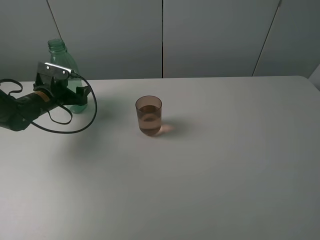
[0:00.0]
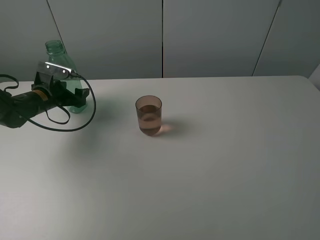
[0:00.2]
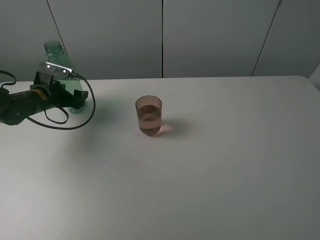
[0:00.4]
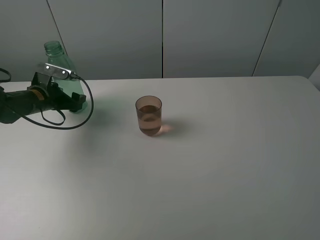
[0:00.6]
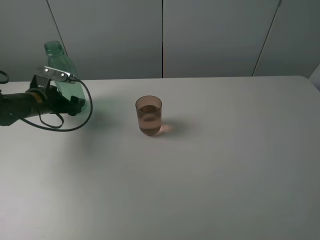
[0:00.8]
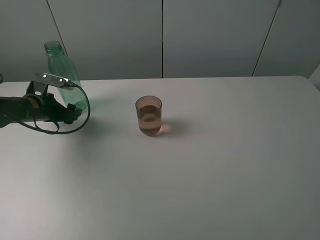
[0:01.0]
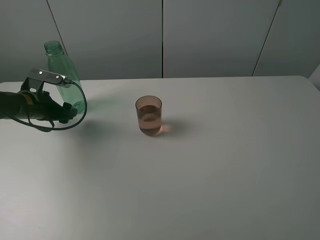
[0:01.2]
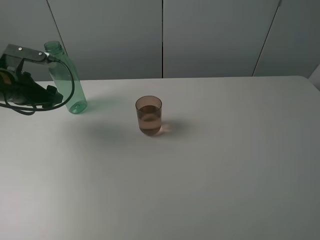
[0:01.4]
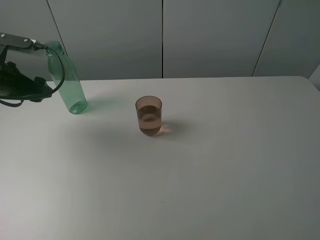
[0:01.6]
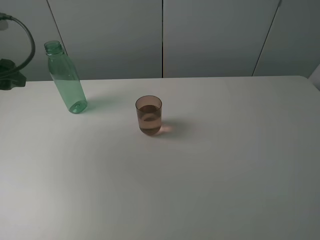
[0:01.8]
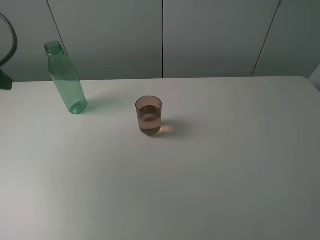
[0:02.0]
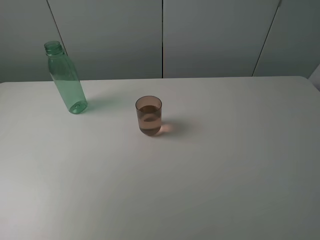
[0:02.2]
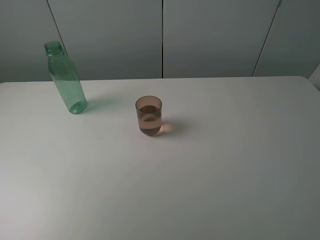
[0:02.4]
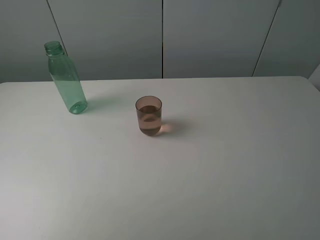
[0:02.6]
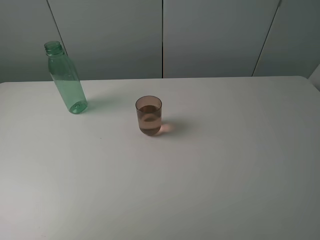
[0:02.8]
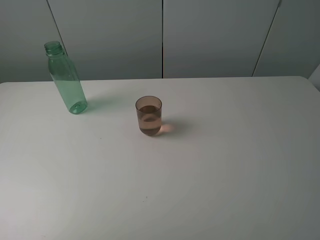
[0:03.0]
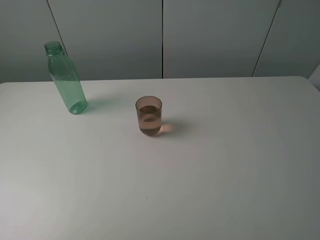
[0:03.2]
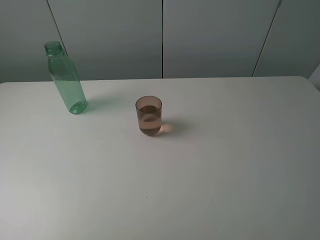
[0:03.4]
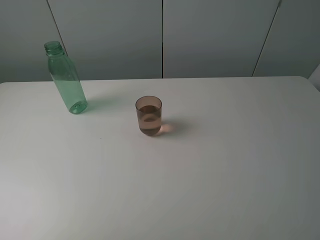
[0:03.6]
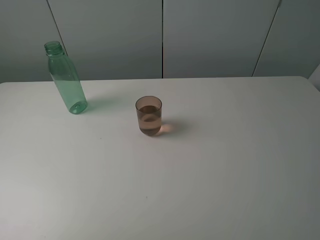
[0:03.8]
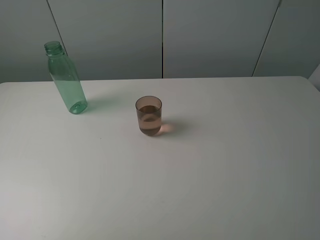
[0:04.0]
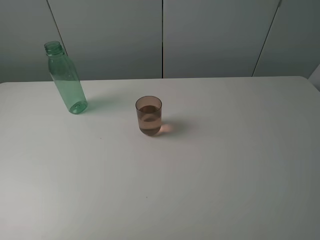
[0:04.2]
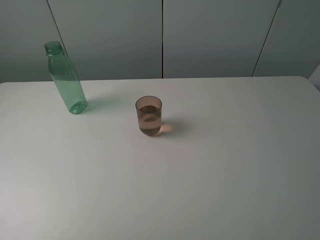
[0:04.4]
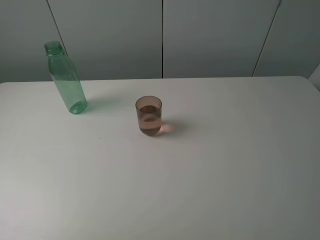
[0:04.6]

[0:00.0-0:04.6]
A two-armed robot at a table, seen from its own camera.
Task of the whole recording: pick up the bottle filled with water and pour it into the pink cup.
0:00.0 to 0:01.6: The left gripper goes approximately 15 cm upward and backward.
0:01.6 to 0:03.0: The left gripper shifts about 30 cm backward.
